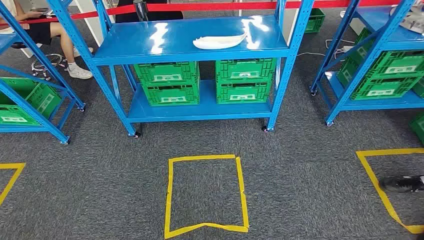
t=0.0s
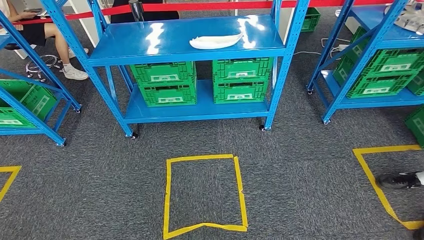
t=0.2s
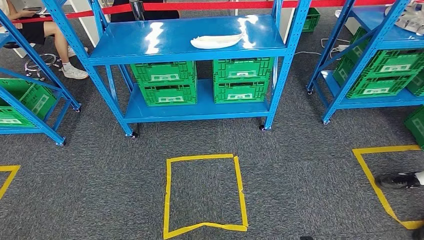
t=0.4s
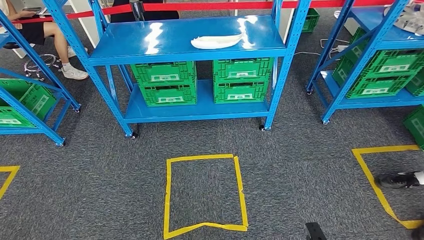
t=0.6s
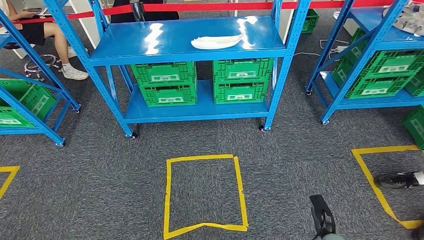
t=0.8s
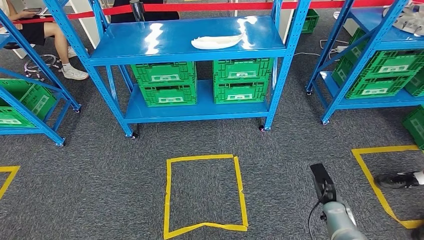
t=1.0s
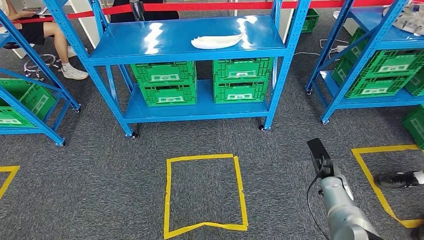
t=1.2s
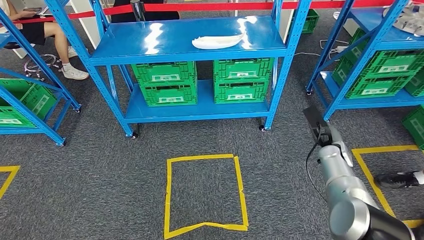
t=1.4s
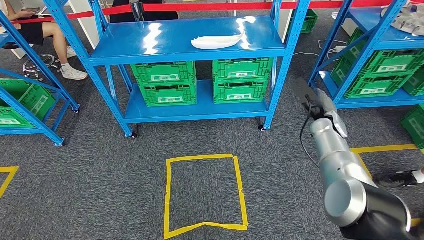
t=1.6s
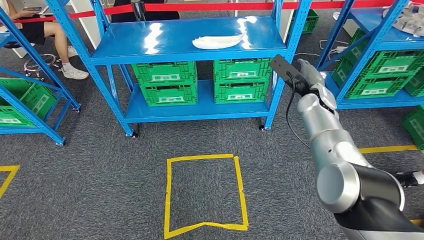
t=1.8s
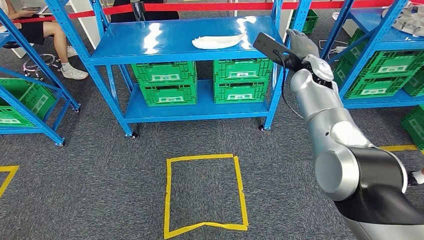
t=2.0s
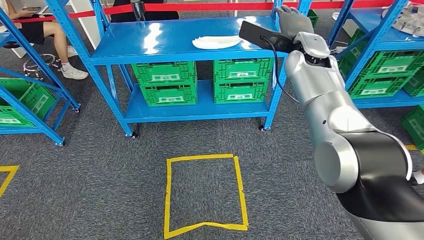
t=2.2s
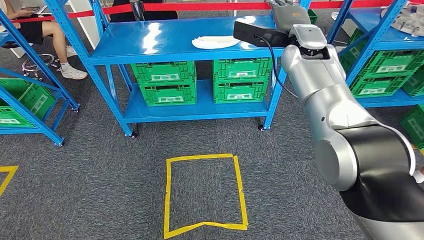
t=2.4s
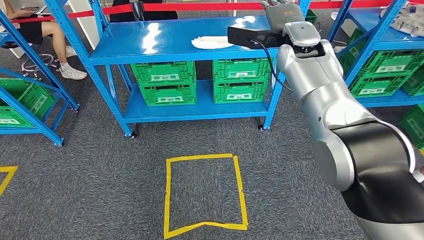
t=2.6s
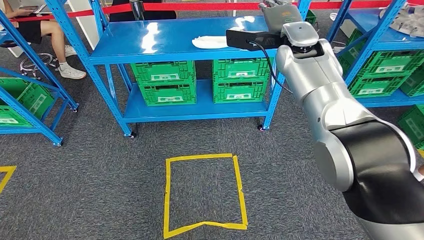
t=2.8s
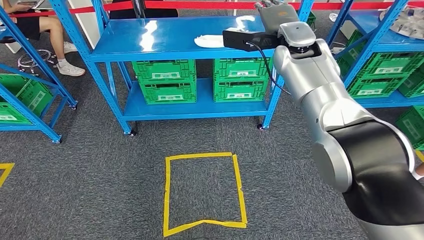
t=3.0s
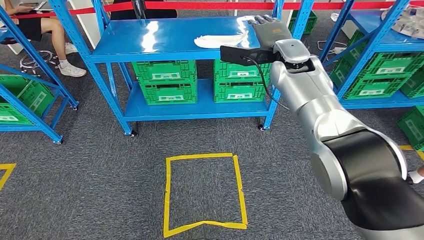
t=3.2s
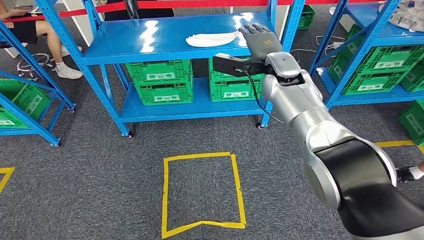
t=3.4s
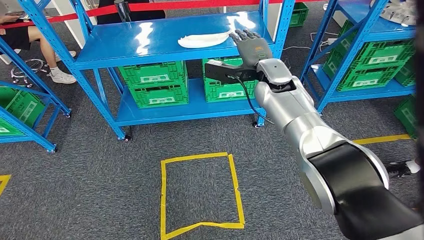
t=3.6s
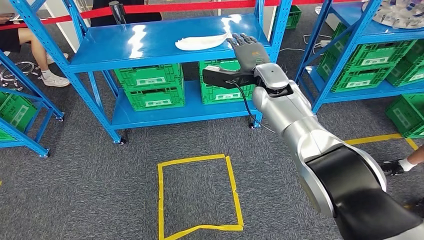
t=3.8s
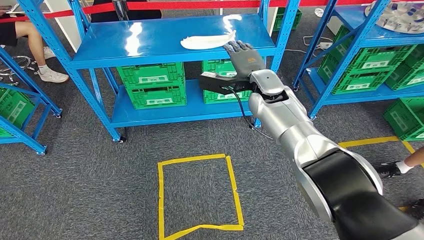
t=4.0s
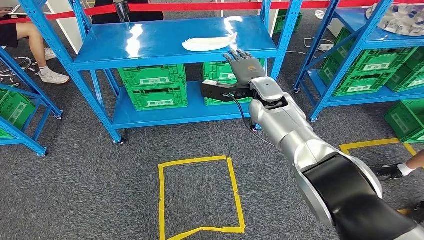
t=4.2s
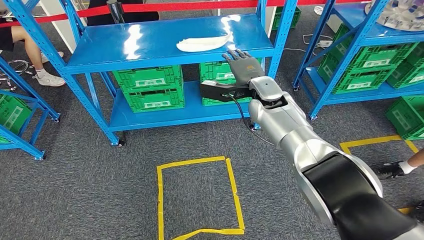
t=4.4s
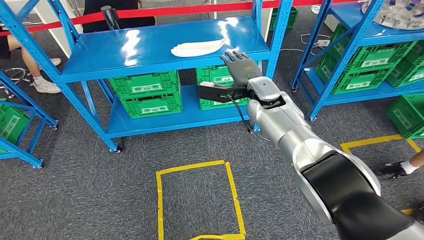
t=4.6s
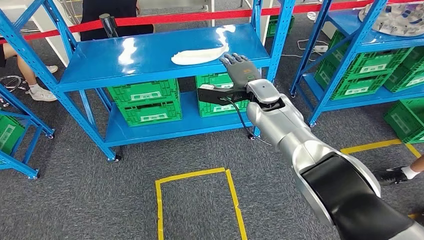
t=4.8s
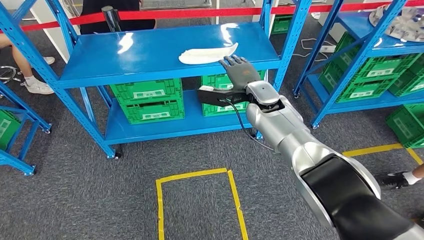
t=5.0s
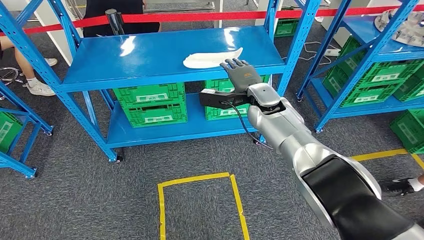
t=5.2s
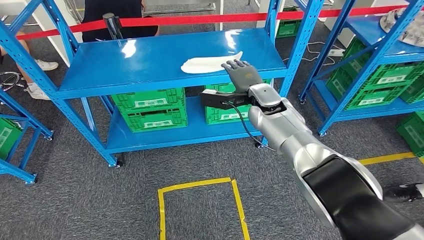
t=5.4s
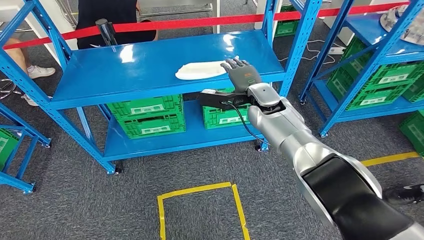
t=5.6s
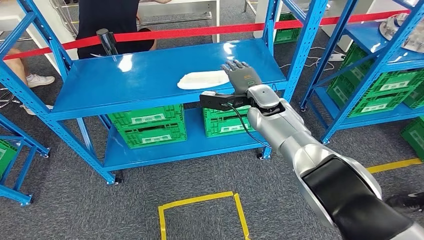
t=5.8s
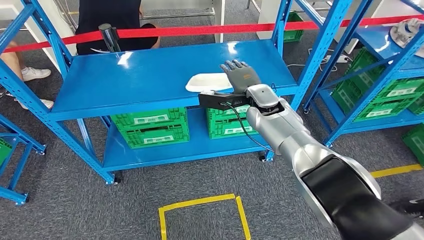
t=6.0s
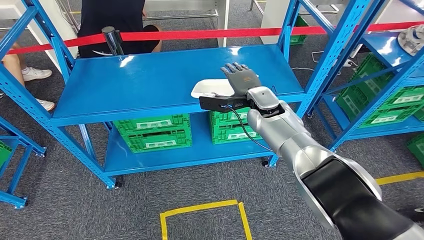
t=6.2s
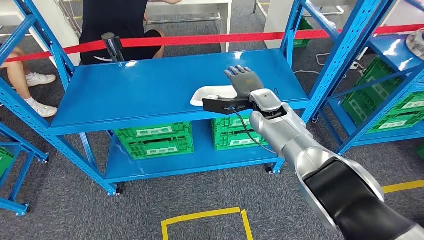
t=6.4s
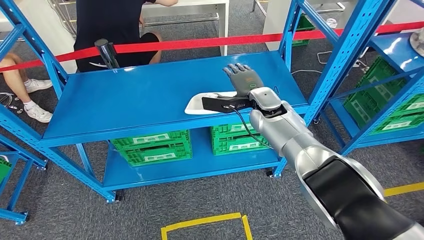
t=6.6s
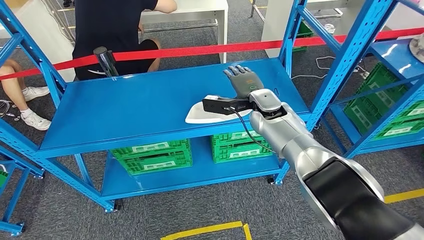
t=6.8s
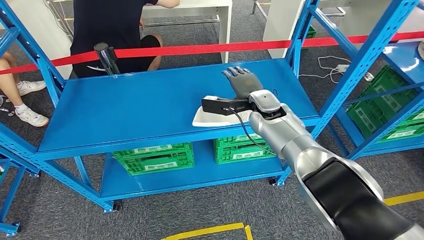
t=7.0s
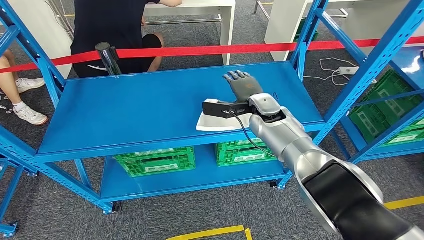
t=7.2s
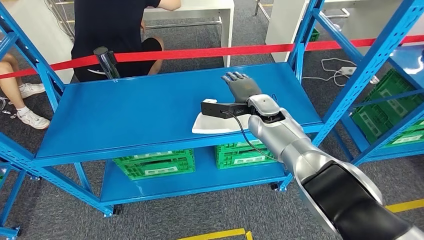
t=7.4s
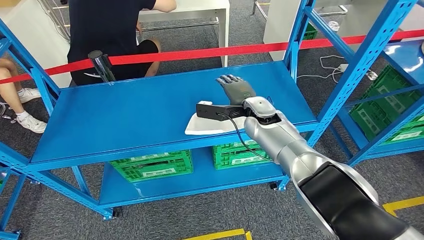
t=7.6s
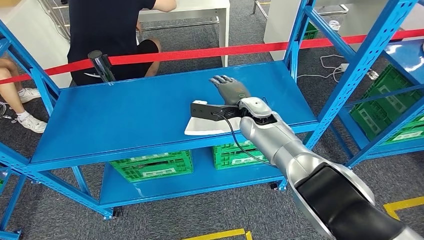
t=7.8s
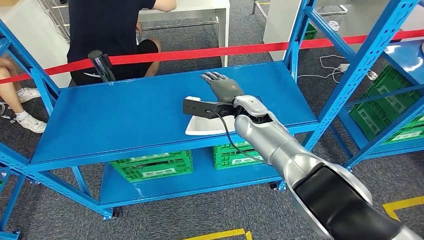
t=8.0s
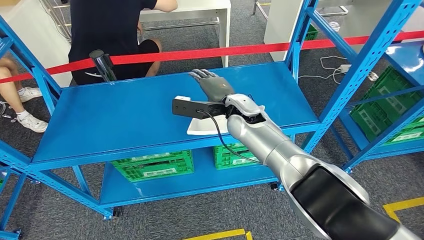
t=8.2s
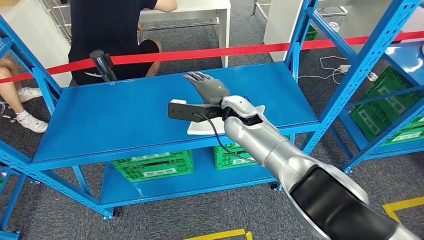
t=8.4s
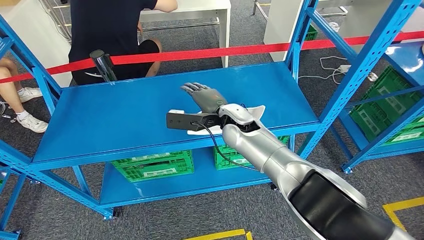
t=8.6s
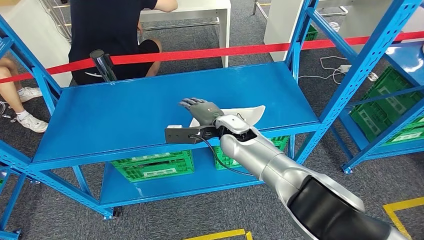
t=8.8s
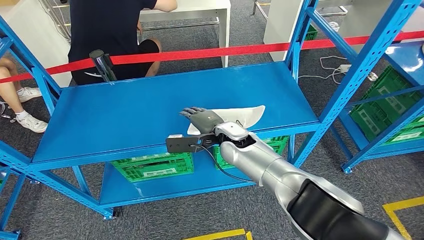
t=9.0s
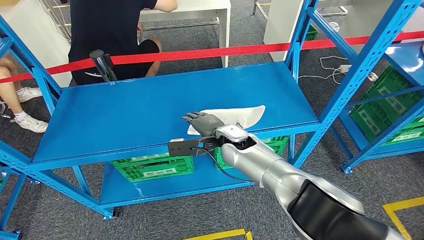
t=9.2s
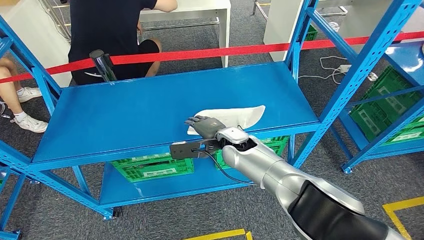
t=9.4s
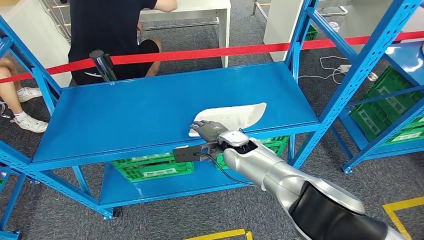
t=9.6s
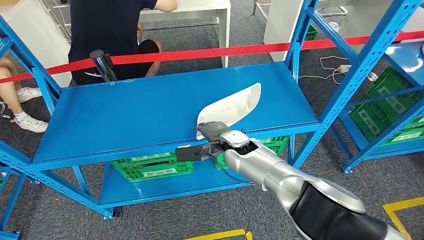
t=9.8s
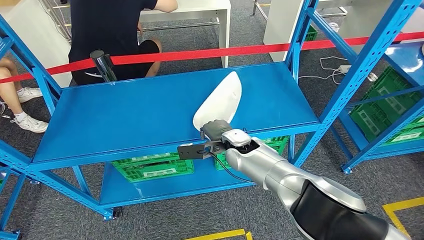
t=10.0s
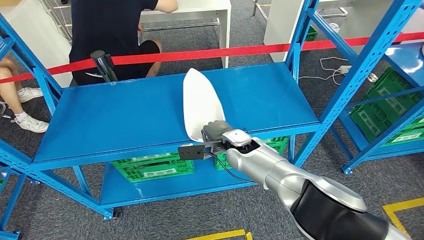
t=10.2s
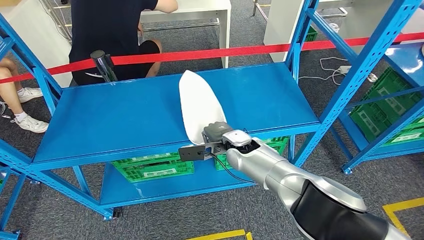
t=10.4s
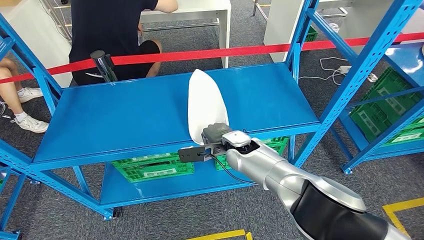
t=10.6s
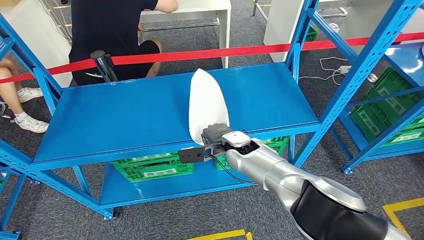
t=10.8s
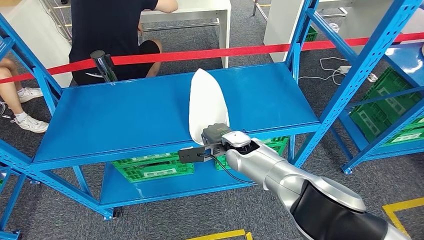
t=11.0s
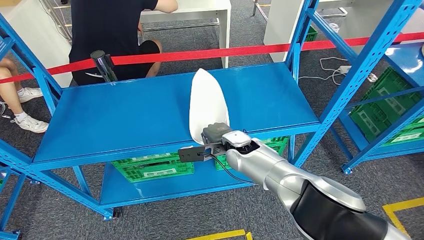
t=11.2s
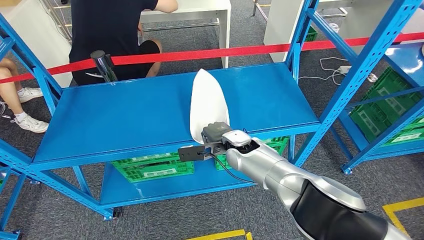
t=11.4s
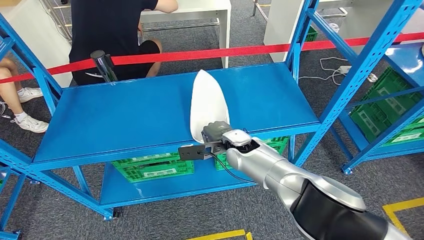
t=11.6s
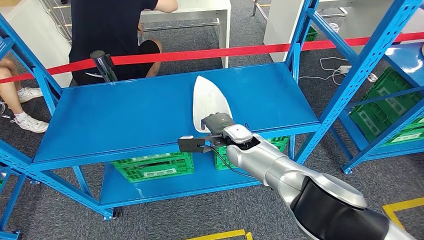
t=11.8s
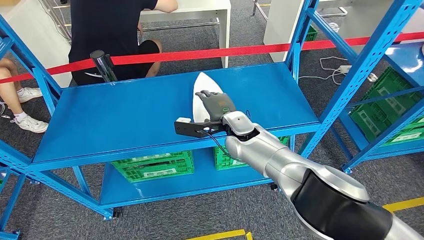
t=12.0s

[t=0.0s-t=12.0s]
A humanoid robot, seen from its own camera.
t=7.6s to t=9.0s: The right hand moves to the left, about 5 cm.
t=9.0s to t=10.4s: There are only small adjustments of the hands.
t=10.4s to t=12.0s: The right hand changes place by approximately 5 cm.

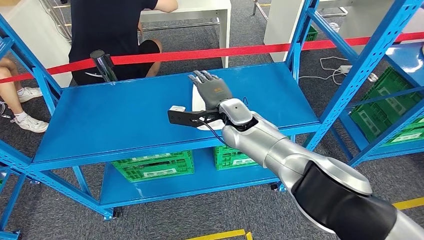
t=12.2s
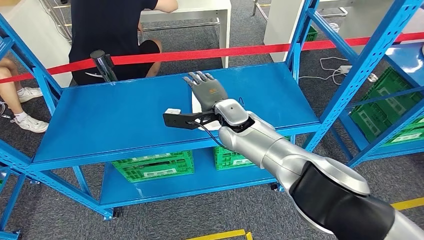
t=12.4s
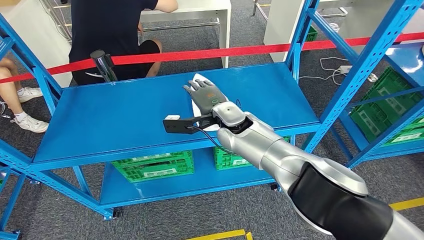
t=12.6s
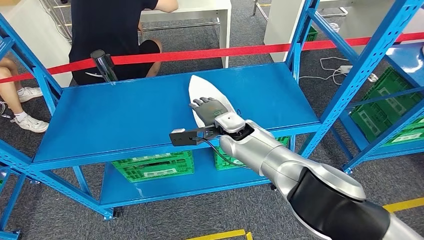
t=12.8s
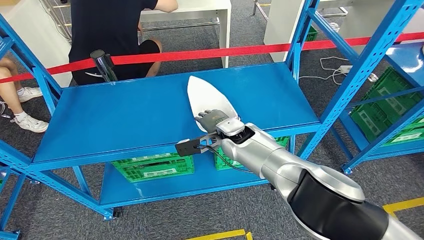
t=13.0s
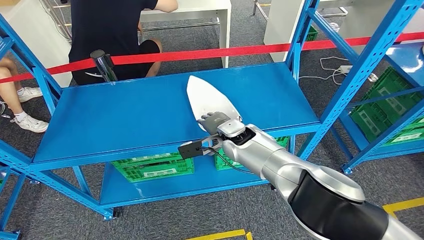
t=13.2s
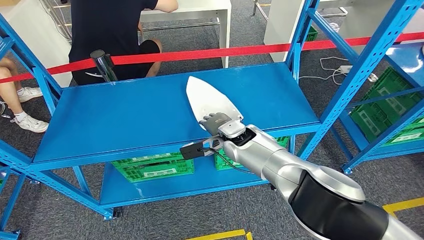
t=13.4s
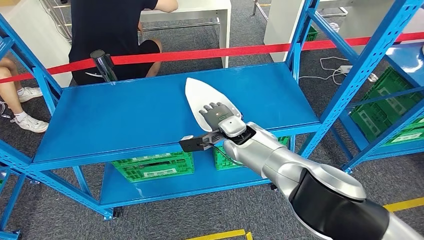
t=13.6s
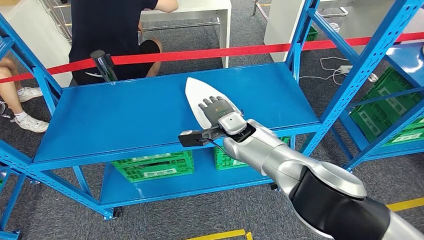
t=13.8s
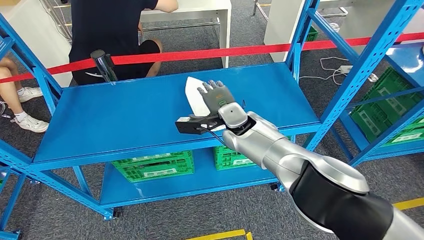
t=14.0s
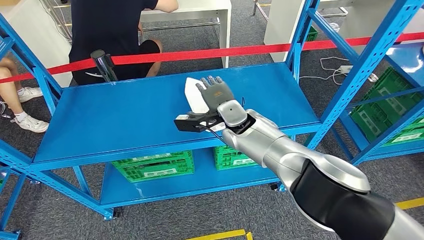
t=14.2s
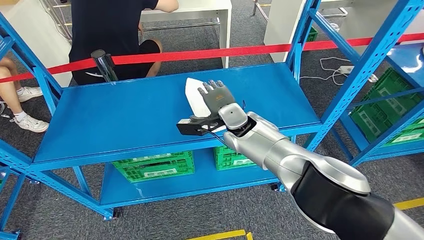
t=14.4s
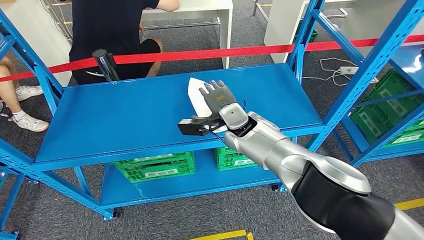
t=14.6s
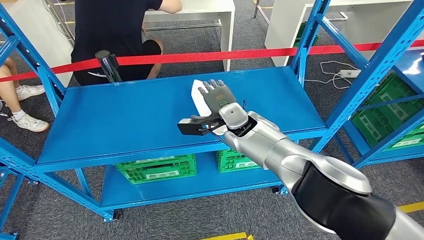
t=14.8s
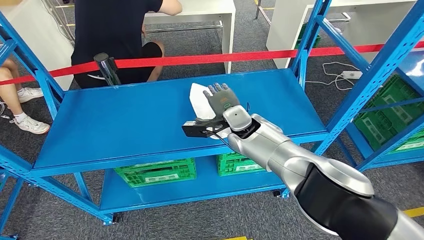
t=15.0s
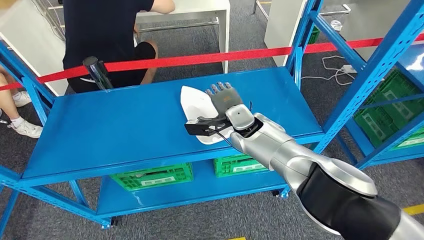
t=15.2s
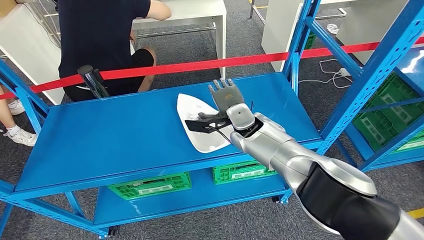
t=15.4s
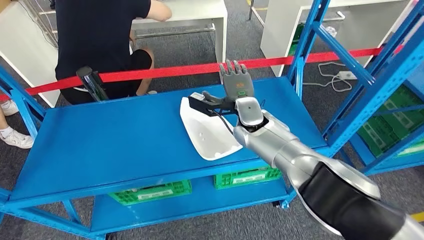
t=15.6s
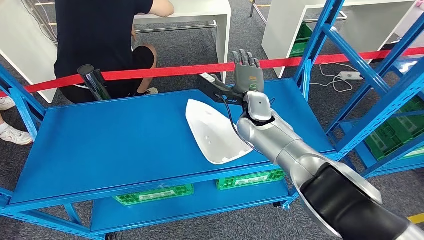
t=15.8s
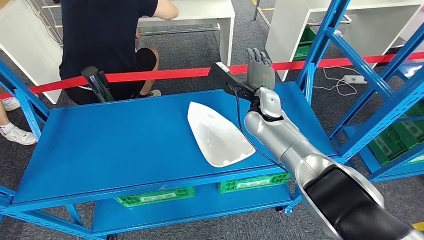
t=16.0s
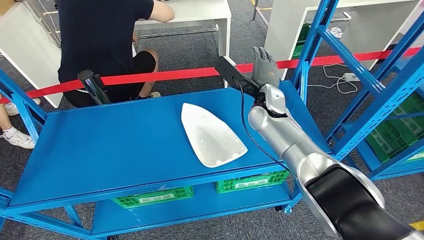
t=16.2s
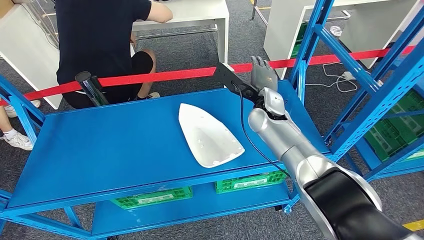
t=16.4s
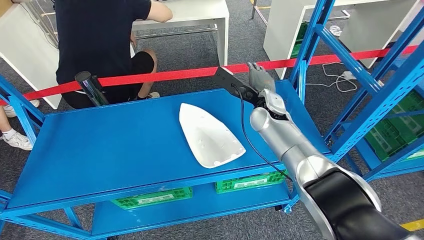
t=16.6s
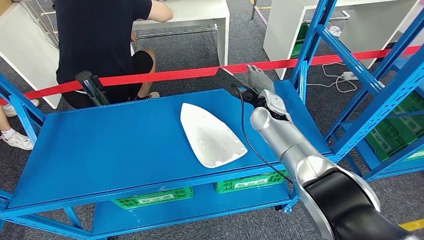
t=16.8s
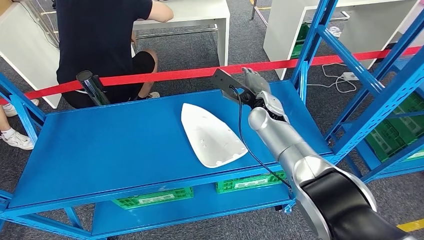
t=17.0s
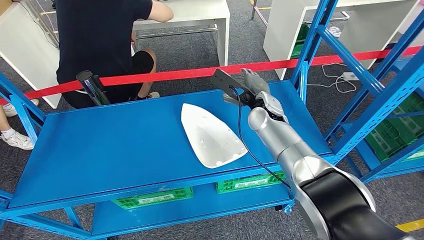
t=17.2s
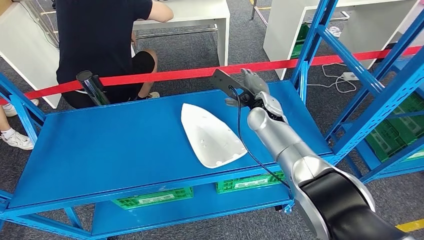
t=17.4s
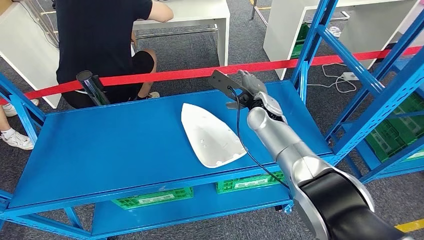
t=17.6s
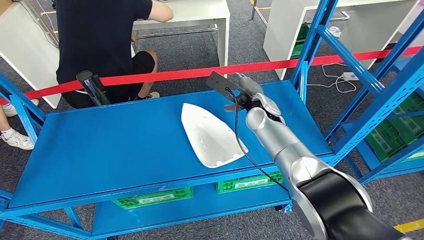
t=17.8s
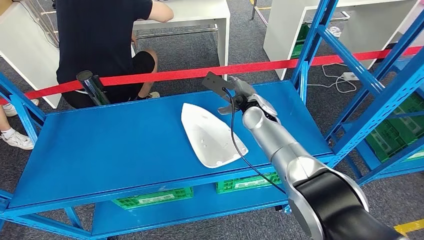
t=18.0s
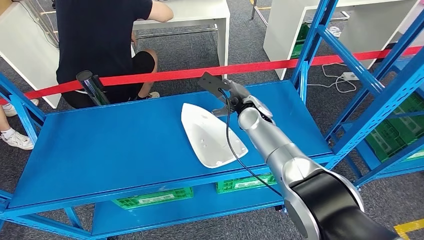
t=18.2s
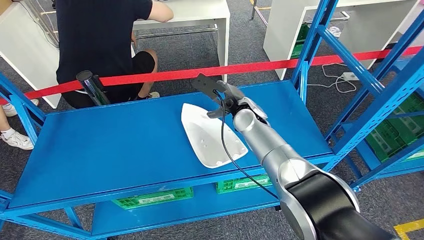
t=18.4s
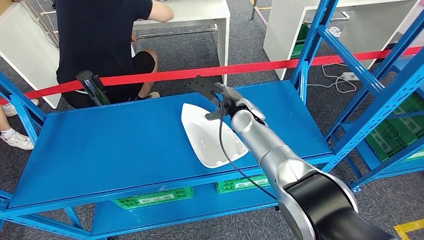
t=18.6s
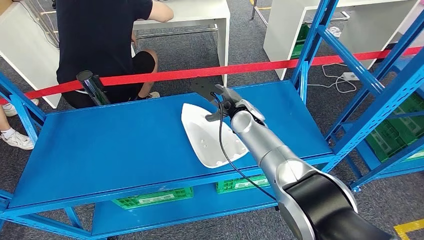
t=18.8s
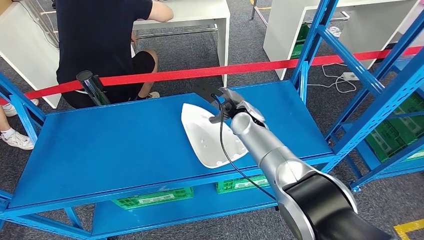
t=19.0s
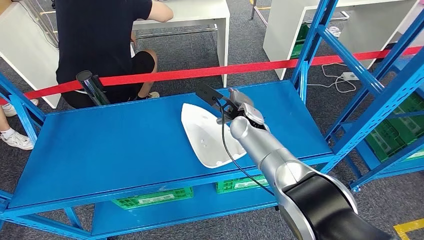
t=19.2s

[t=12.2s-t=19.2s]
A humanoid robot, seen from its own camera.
t=17.8s to t=19.2s: The right hand ends up some 5 cm from where it was.
